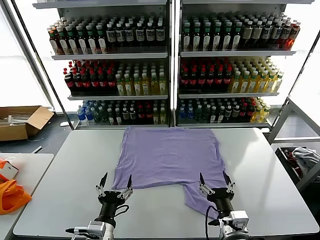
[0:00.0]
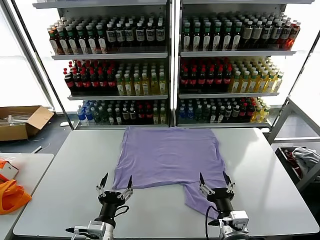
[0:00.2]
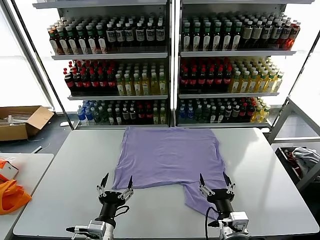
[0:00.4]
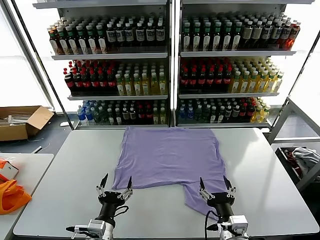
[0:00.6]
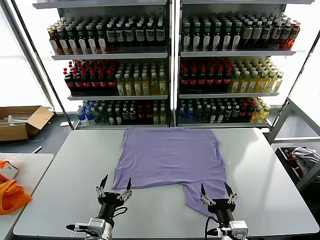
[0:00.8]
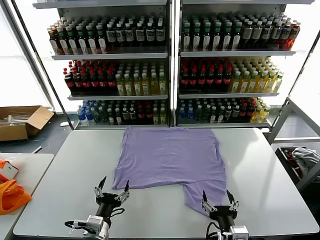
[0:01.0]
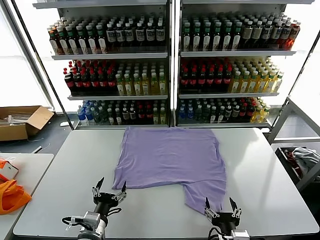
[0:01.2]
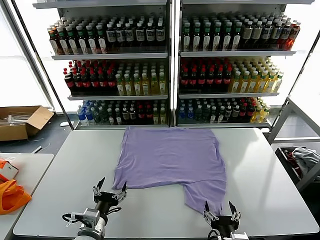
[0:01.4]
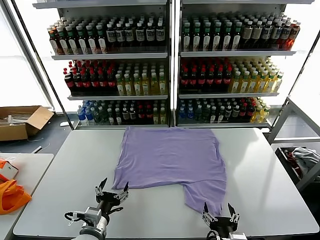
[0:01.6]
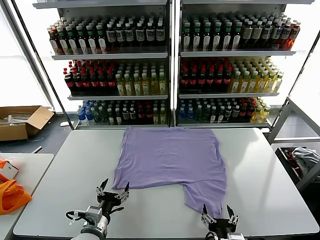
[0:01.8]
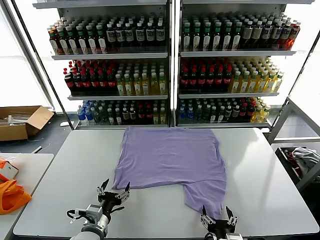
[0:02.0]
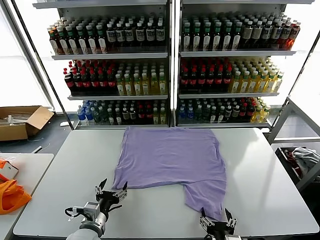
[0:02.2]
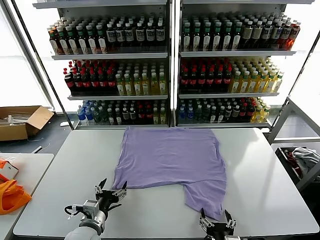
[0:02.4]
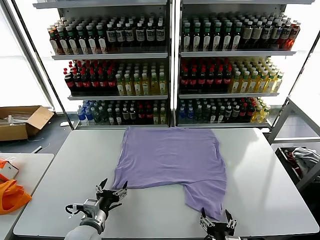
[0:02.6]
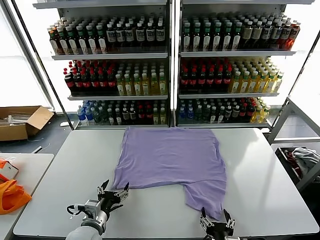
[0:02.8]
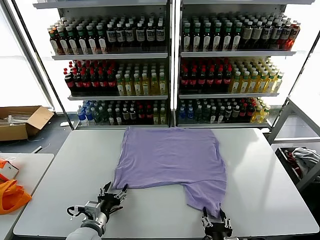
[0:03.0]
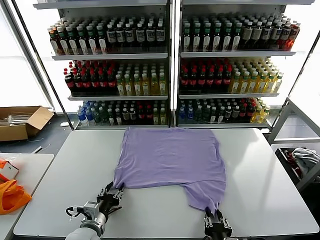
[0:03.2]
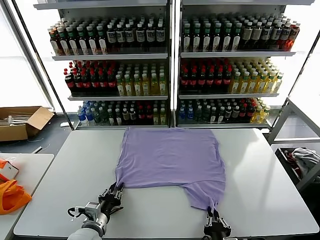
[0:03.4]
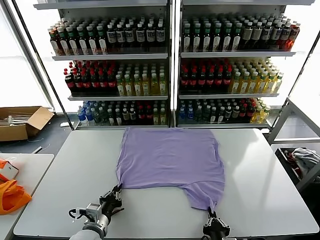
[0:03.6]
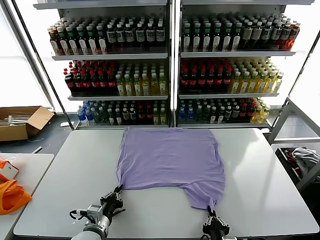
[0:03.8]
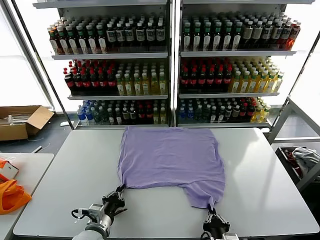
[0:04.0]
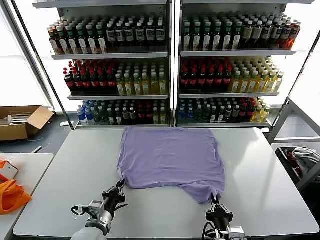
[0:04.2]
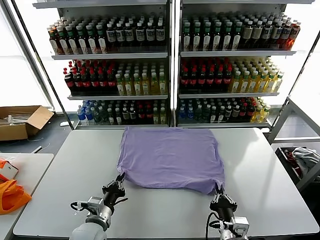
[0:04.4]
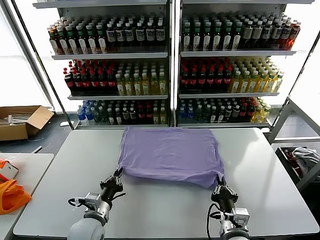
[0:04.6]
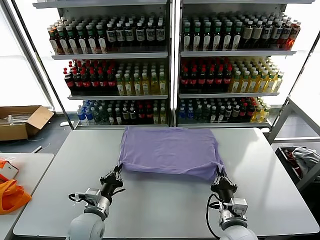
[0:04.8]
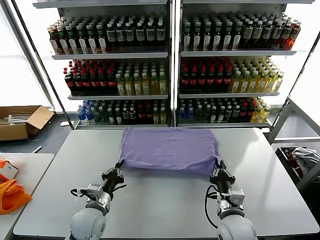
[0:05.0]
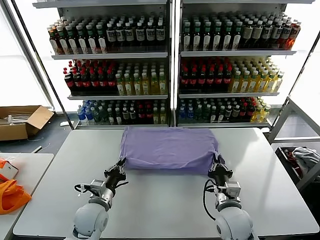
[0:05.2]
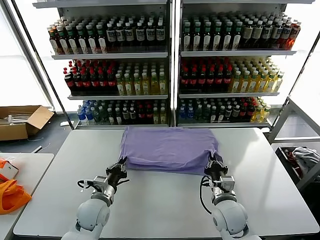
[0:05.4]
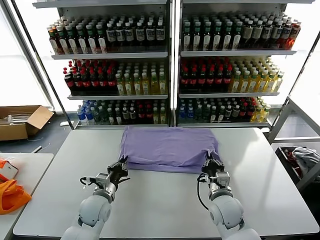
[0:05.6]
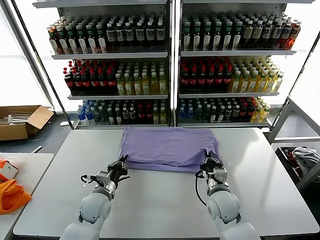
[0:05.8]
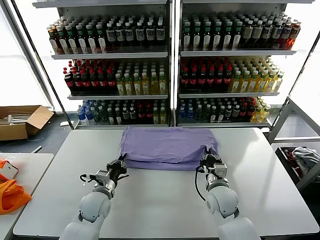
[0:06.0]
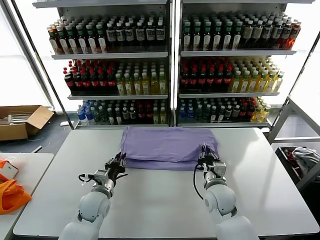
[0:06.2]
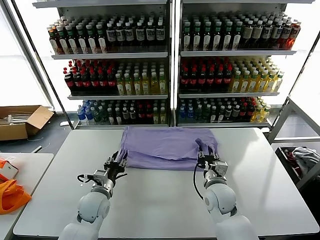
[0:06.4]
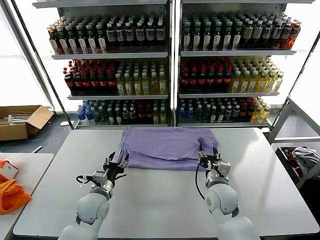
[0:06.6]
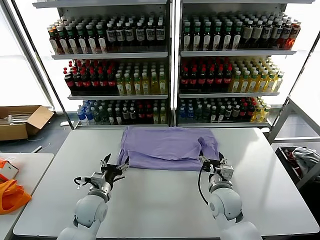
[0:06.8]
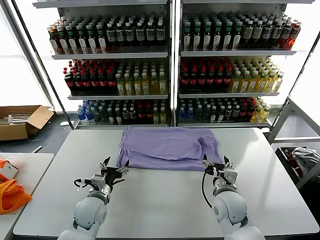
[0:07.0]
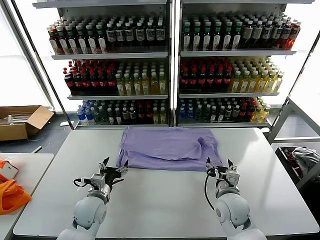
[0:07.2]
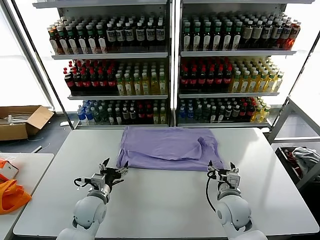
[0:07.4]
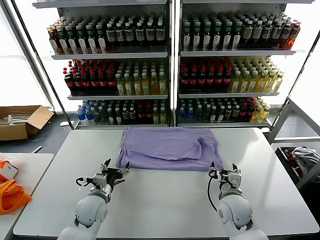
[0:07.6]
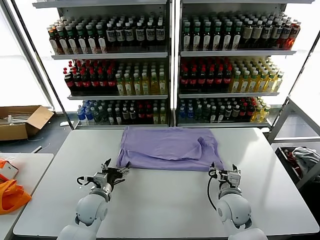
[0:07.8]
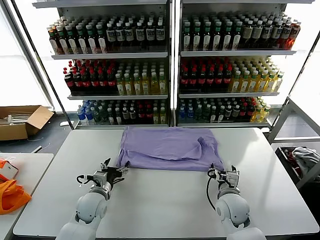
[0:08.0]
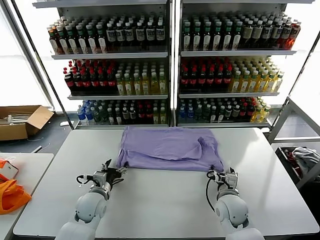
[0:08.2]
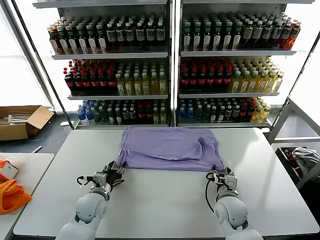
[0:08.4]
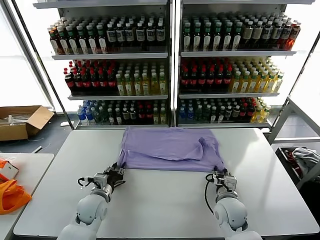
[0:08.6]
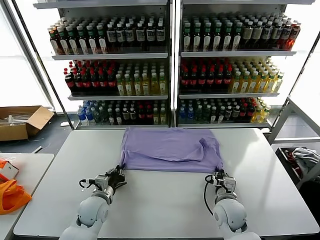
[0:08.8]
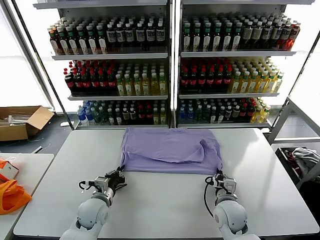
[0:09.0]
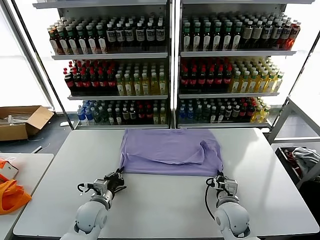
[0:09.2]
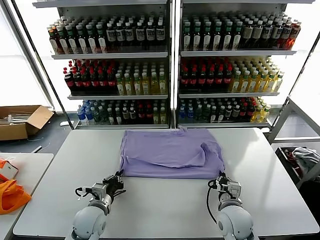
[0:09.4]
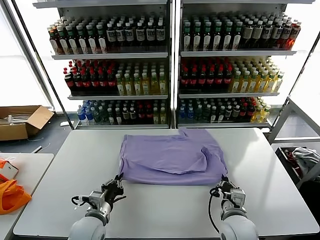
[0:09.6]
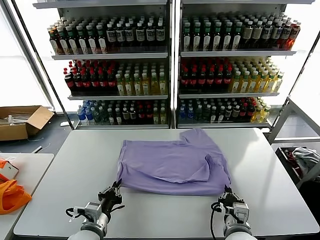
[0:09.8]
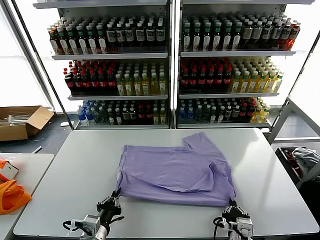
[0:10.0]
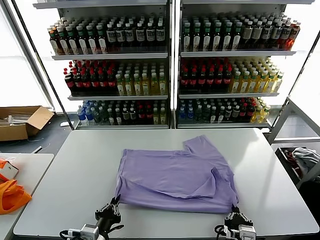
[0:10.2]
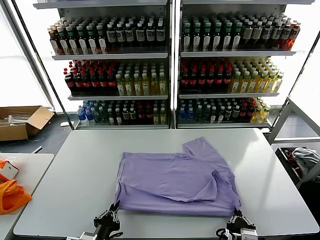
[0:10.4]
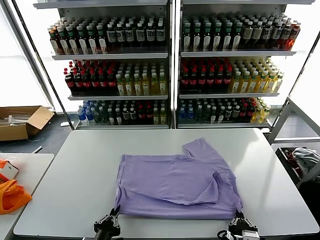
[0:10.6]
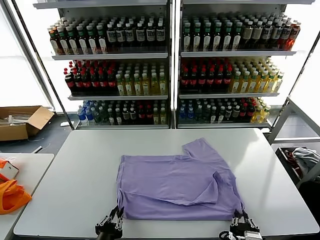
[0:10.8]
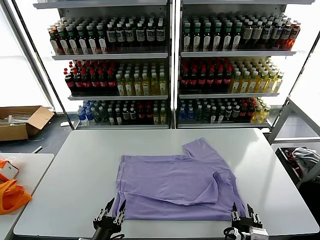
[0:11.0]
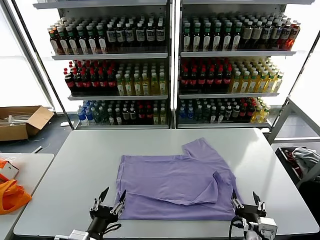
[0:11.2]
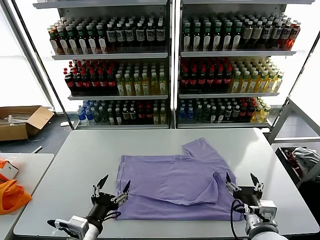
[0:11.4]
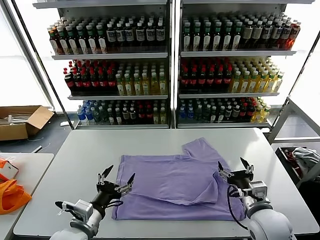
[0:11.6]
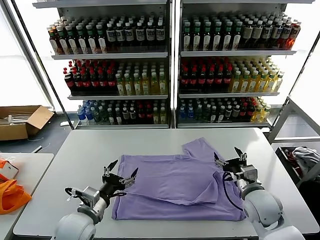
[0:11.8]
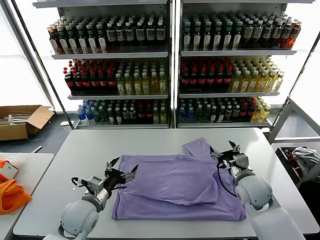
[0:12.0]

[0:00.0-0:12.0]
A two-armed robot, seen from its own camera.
Task of the whole recording: fold and organize the clothes.
Step, 0:00.0 to 0:04.0: use both grippers simultaneously to clamp the lower edge of the clothing fabric.
Step, 0:04.2 to 0:06.4: use both grippers to drag the lower edge of the fabric forward and fold it over the upper edge.
Step, 0:06.8 to 0:10.8: Drag the clothes downward with both gripper.
0:01.6 to 0:03.0: The right gripper closes up.
0:03.0 to 0:04.4: The left gripper closes up, while the right gripper shifts approximately 5 cm forward, and closes.
0:04.4 to 0:06.0: The left gripper travels forward by roughly 10 cm, while the right gripper is displaced forward by some 15 cm.
0:06.0 to 0:07.6: The left gripper opens up; the right gripper opens its fingers.
0:07.6 to 0:09.0: The left gripper closes up. The right gripper closes its fingers.
0:09.0 to 0:10.4: The grippers both shift backward by approximately 20 cm.
0:10.4 to 0:12.0: The right gripper is displaced forward by roughly 25 cm, and opens its fingers. The left gripper moves forward, approximately 15 cm, and opens up.

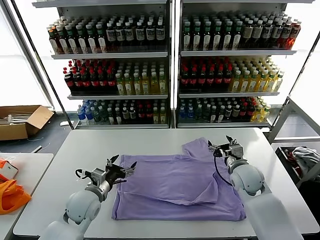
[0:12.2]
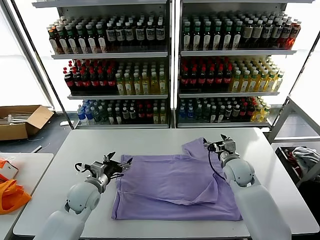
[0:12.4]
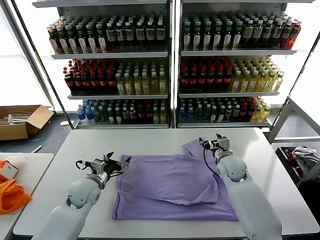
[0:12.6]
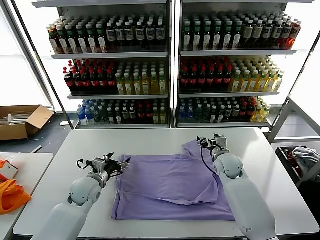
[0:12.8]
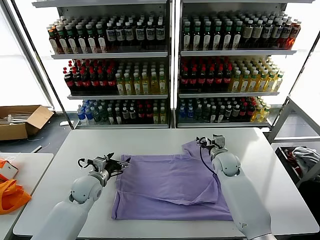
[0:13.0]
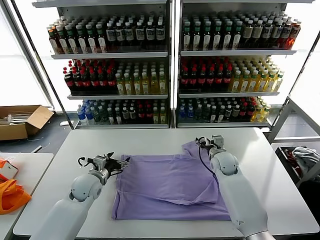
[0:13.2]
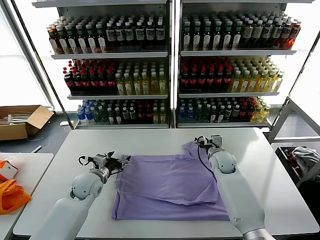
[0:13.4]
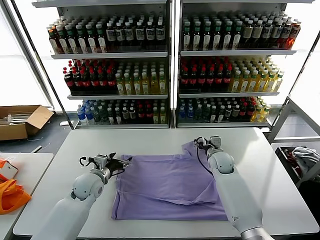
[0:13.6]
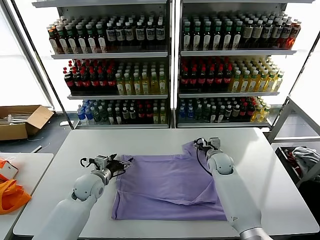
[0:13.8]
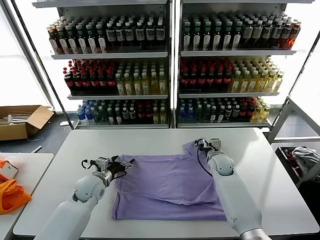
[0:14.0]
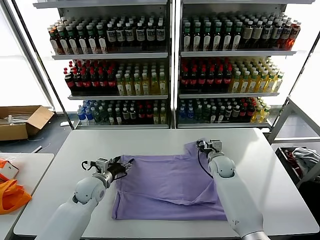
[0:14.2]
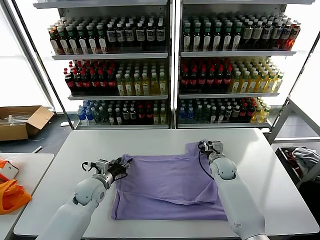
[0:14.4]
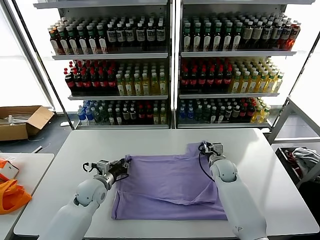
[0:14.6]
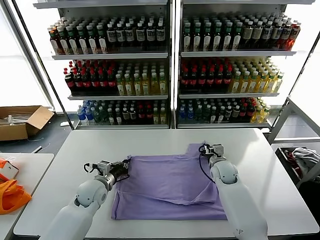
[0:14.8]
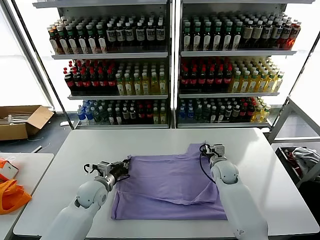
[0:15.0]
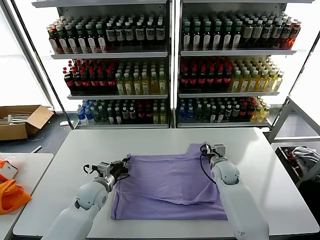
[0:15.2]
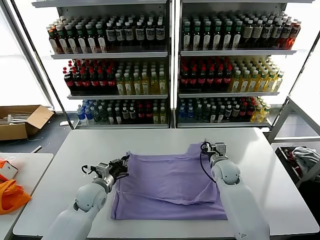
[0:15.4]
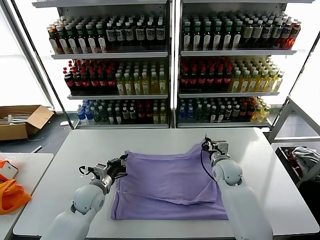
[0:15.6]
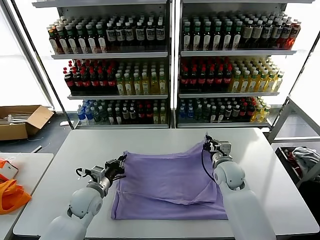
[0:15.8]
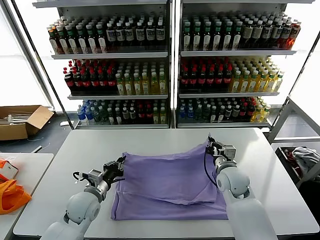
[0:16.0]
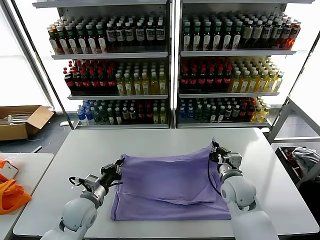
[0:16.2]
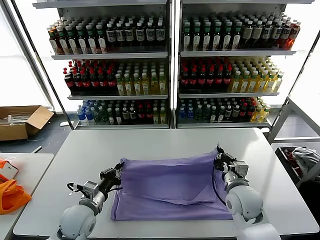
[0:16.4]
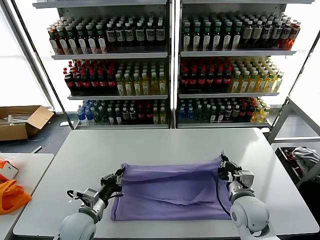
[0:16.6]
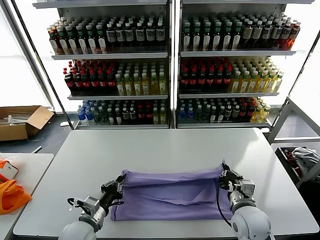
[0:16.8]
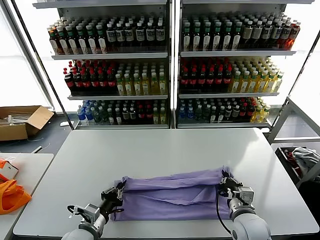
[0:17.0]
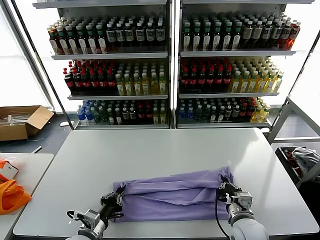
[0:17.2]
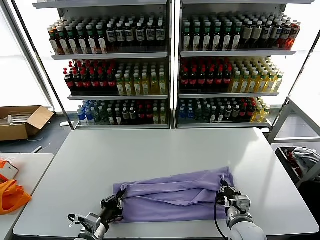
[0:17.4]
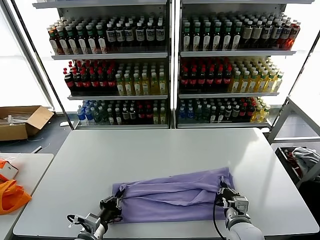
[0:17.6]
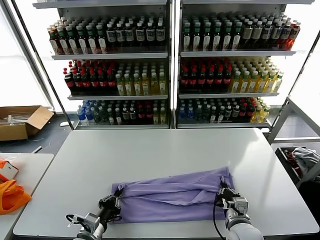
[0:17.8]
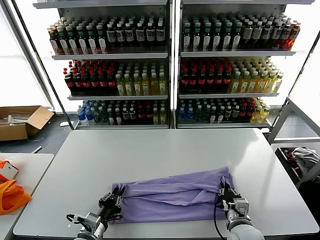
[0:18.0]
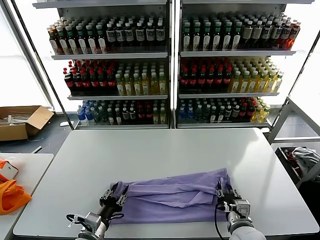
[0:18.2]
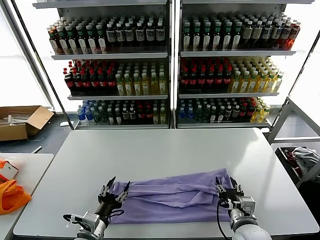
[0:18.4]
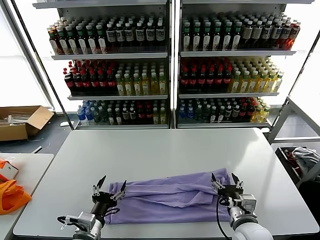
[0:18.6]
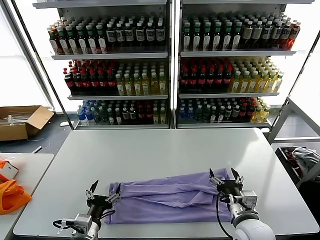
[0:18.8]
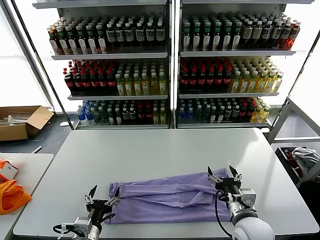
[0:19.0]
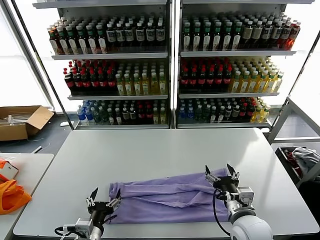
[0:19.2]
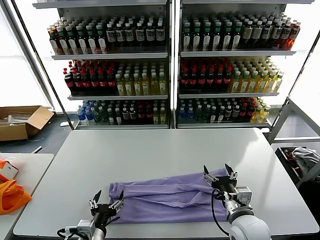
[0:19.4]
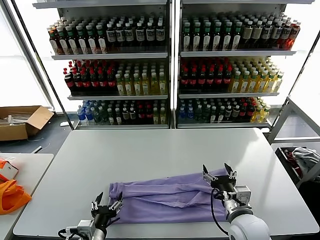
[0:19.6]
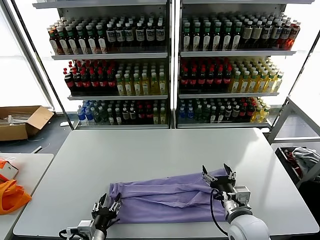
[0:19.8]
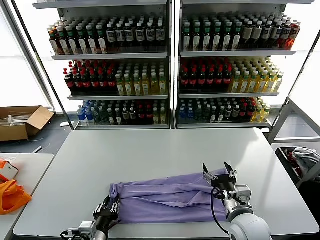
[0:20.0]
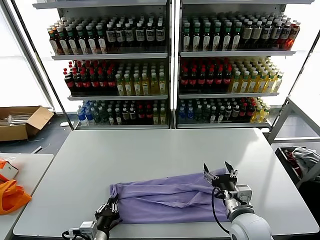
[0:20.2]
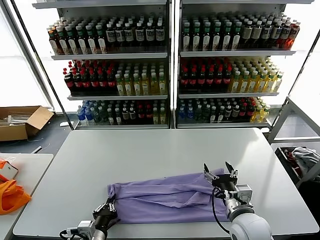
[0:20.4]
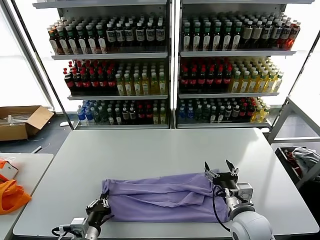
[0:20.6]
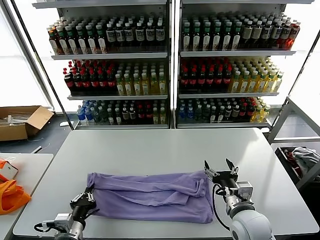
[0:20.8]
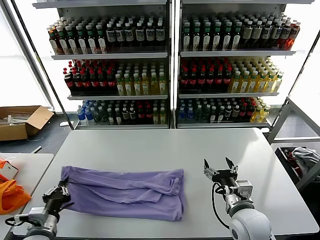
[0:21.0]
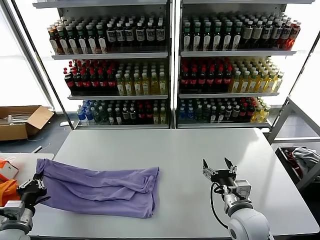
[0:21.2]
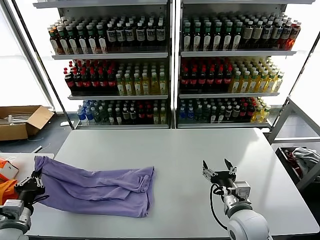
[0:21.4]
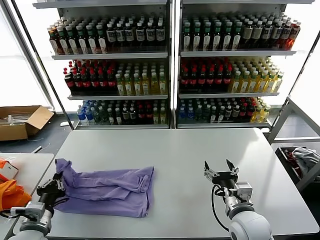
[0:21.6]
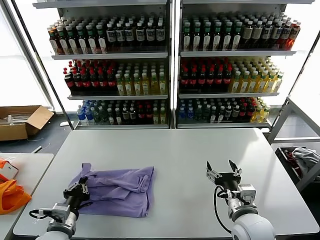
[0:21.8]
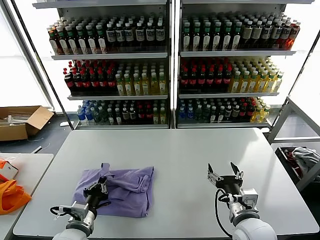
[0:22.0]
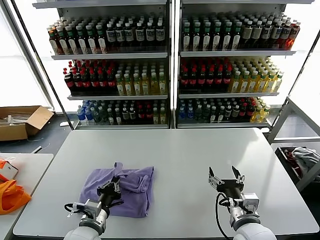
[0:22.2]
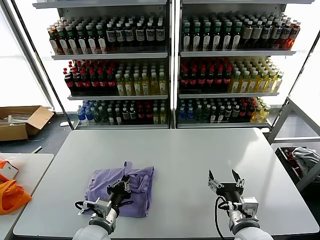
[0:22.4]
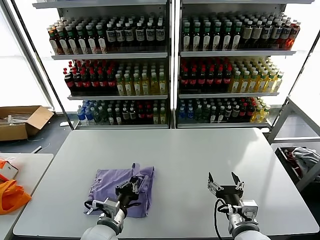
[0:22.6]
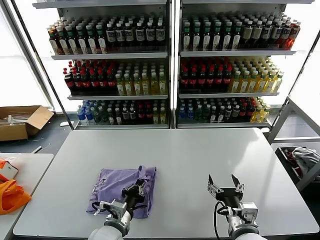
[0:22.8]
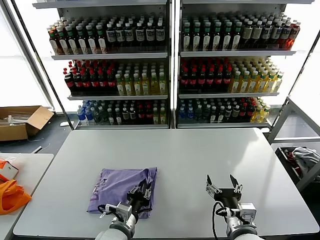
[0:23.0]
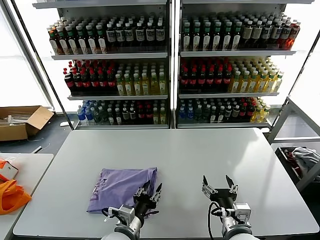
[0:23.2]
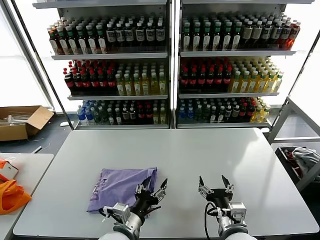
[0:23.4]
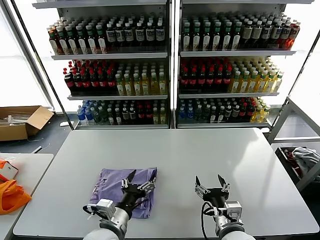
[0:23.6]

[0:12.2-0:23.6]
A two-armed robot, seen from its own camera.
Task of the whole recording: fold and organize the clothes.
Step, 0:12.2 to 0:15.0: use both grippers simultaneously to clamp the upper edge of the clothing fabric.
Step, 0:15.2 to 0:18.2: use both grippers to drag the upper edge of the fabric backward and fold it over the lower edge.
Step, 0:18.4 to 0:20.4: use the left gripper to clamp the left edge of the fabric.
Step, 0:20.6 to 0:23.2: use the left gripper to drag the left edge of the fabric to the left and folds it over the right edge.
0:12.2 to 0:13.6: The left gripper travels forward by about 10 cm, while the right gripper moves forward and downward, some 10 cm.
0:13.6 to 0:15.0: The right gripper closes up. The left gripper closes its fingers.
0:15.0 to 0:16.4: The left gripper heads backward, covering approximately 10 cm. The right gripper moves backward and upward, some 15 cm.
0:16.4 to 0:17.8: The right gripper moves backward and downward, roughly 10 cm, while the left gripper heads backward, covering some 10 cm.
0:17.8 to 0:19.4: The left gripper moves about 5 cm, and opens up, while the right gripper heads upward, covering about 5 cm, and opens its fingers.
0:19.4 to 0:20.8: The left gripper closes its fingers.
0:20.8 to 0:22.2: The left gripper reaches roughly 15 cm to the left, then returns.
0:22.2 to 0:23.6: The left gripper heads to the right, covering about 10 cm, and opens.
